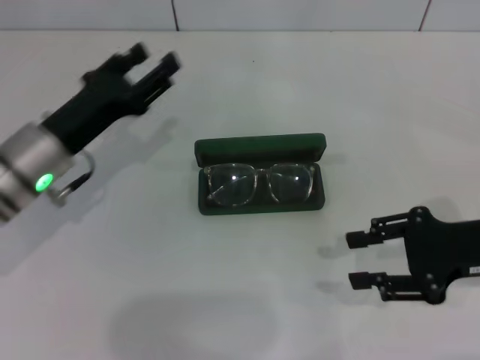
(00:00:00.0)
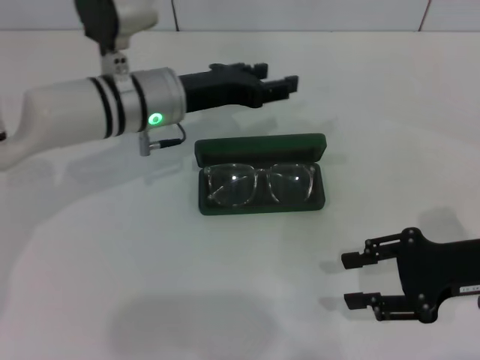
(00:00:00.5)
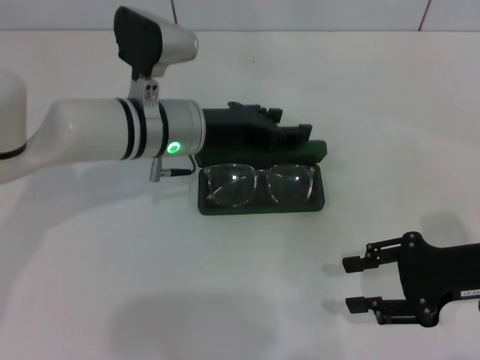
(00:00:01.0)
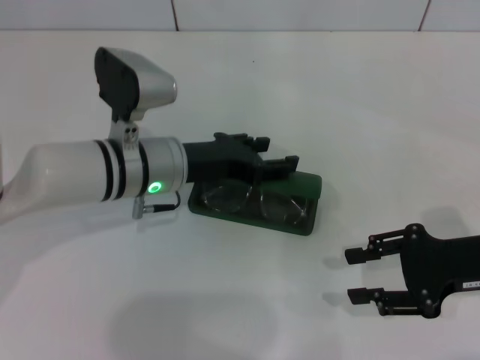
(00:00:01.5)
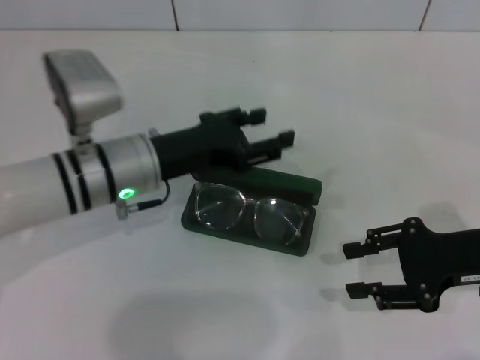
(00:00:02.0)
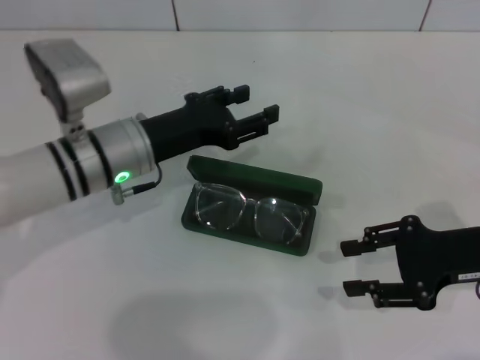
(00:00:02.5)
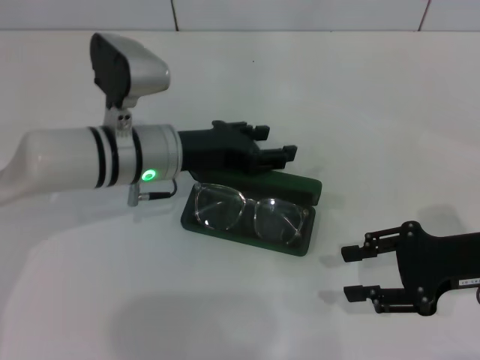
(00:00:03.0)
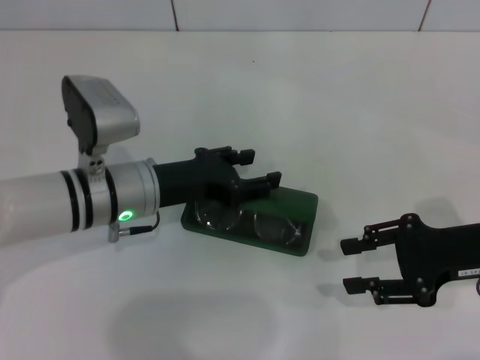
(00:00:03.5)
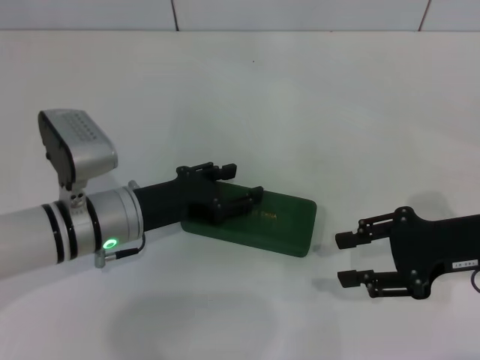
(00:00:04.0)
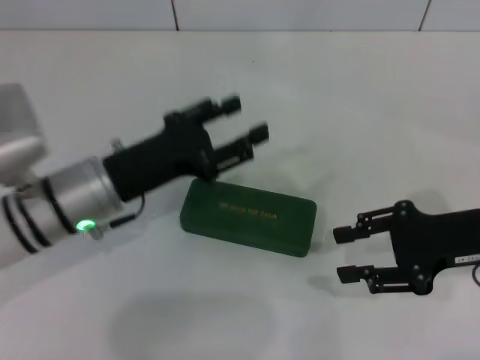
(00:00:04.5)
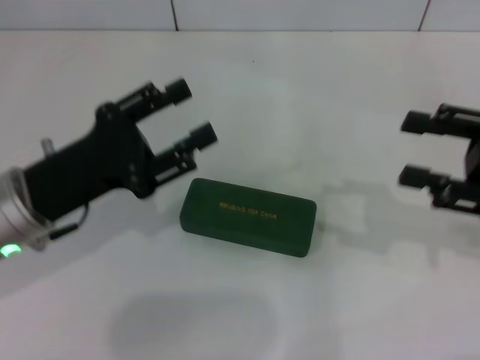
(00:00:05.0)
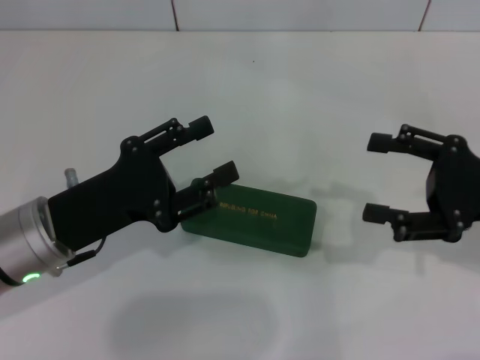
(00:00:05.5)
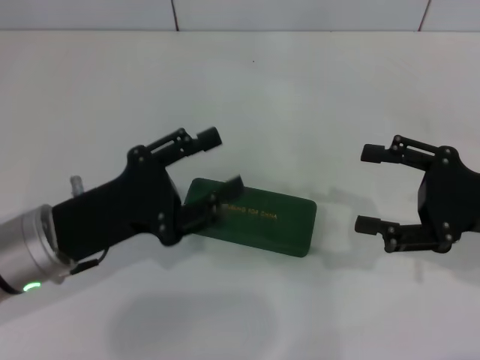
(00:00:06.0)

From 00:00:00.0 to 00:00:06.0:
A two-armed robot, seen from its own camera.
Step, from 00:00:00.0 to 00:00:03.5: Close the glasses case with your left hand.
From 00:00:00.0 to 00:00:02.0: The left gripper travels to the right by about 5 cm.
From 00:00:02.0 to 00:00:04.0: The left gripper changes place by approximately 5 cm.
From 00:00:04.0 to 00:00:06.0: The right gripper opens. Meanwhile the left gripper heads backward, covering about 5 cm.
